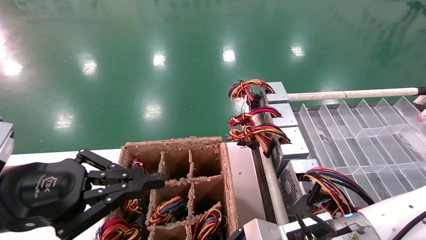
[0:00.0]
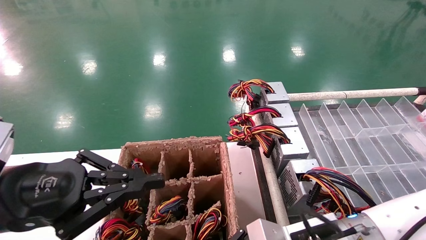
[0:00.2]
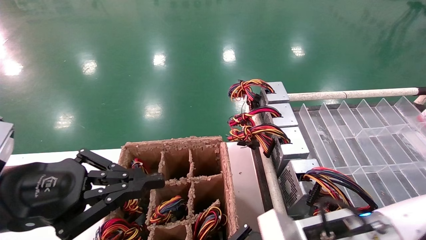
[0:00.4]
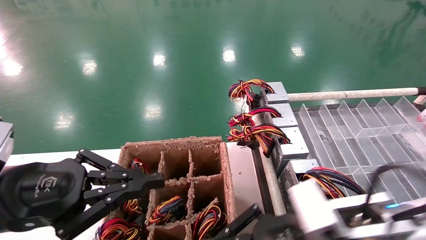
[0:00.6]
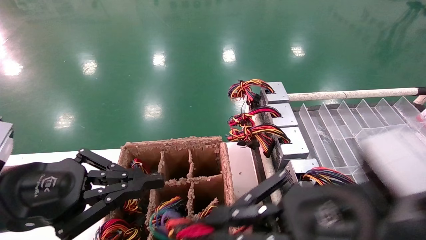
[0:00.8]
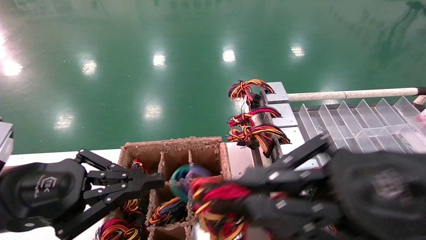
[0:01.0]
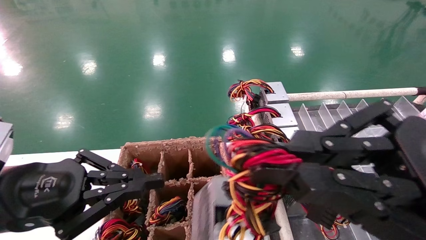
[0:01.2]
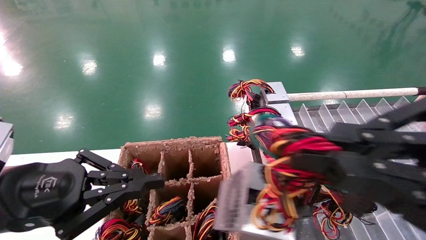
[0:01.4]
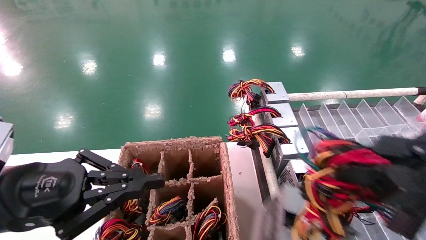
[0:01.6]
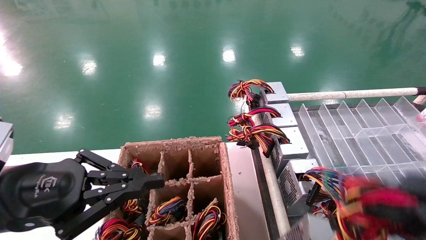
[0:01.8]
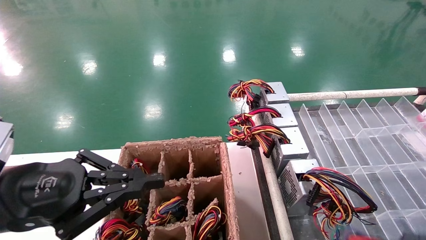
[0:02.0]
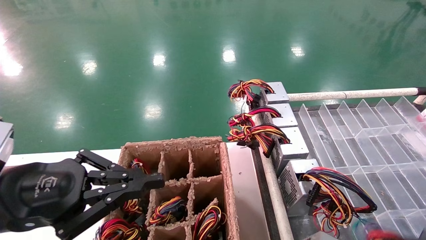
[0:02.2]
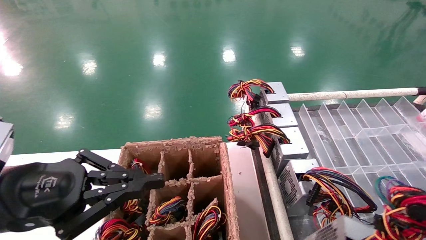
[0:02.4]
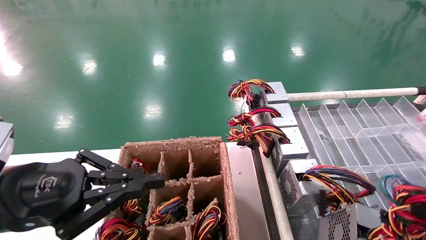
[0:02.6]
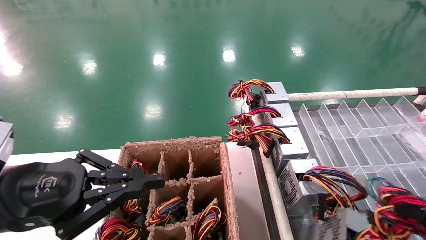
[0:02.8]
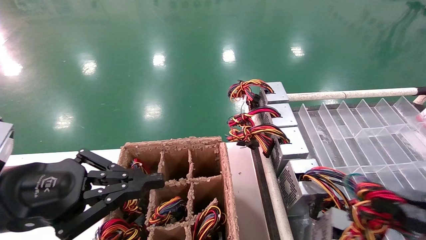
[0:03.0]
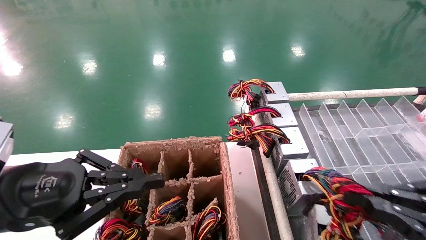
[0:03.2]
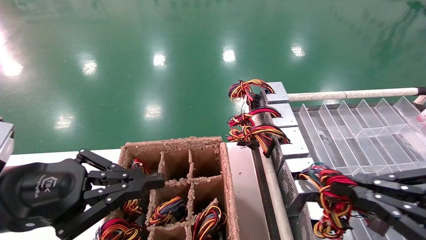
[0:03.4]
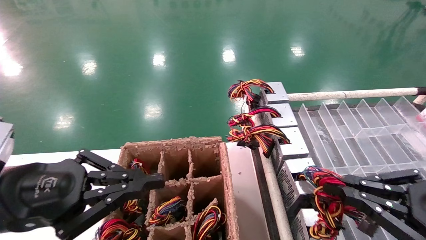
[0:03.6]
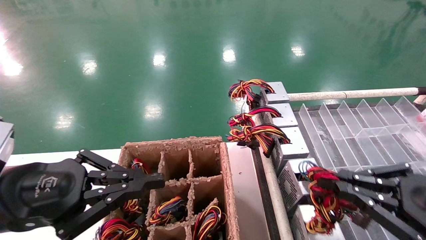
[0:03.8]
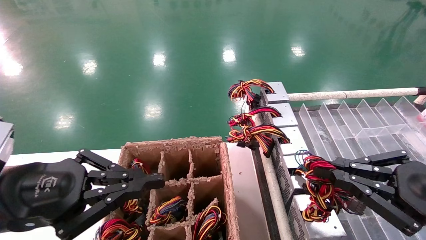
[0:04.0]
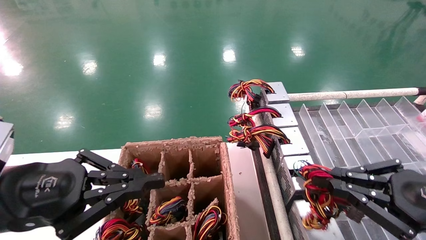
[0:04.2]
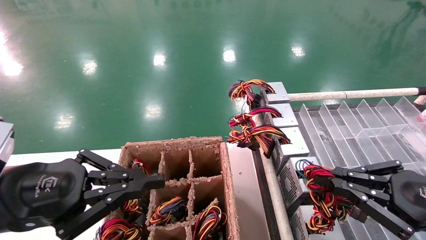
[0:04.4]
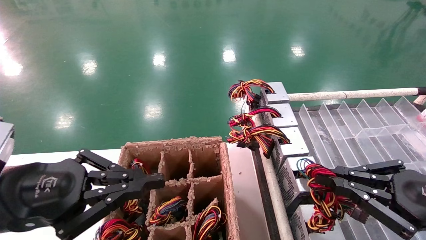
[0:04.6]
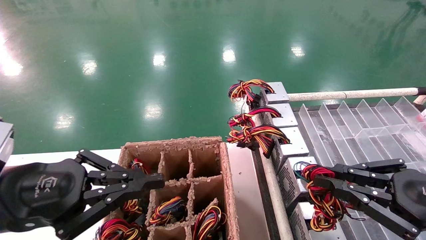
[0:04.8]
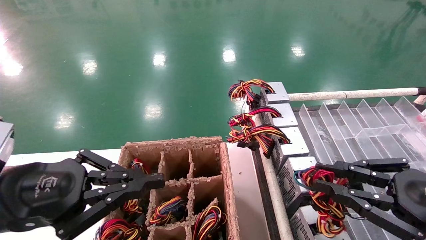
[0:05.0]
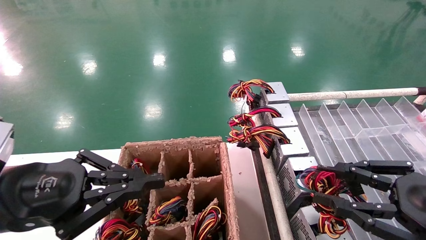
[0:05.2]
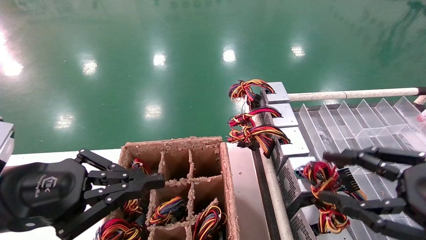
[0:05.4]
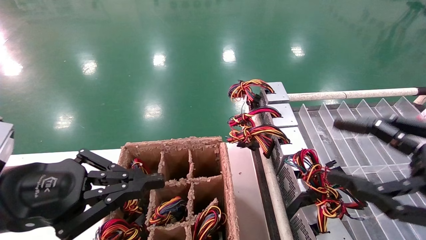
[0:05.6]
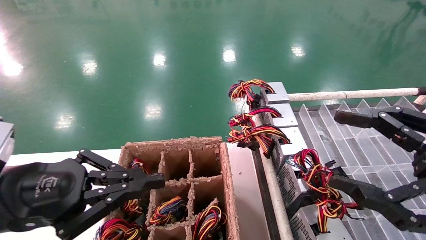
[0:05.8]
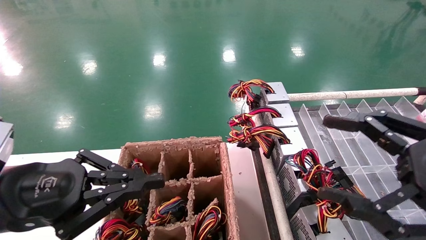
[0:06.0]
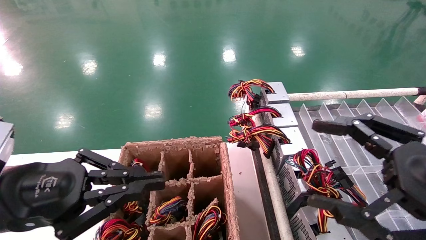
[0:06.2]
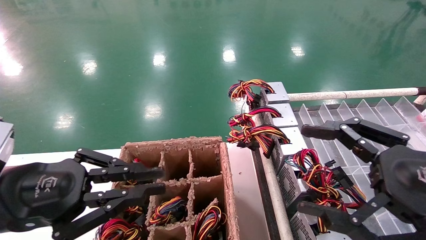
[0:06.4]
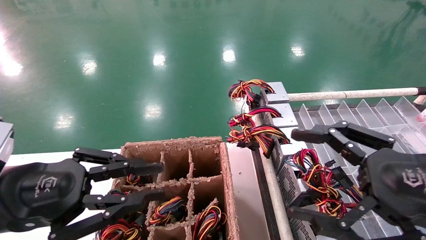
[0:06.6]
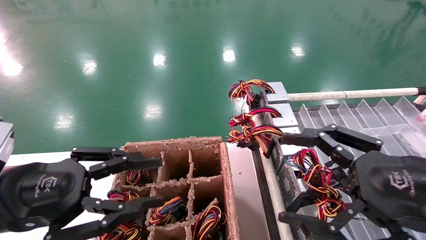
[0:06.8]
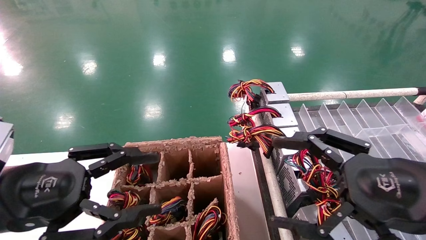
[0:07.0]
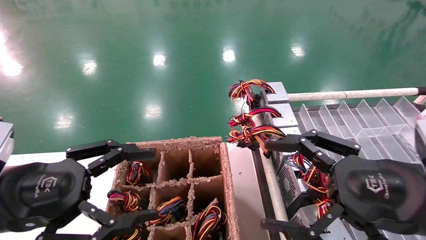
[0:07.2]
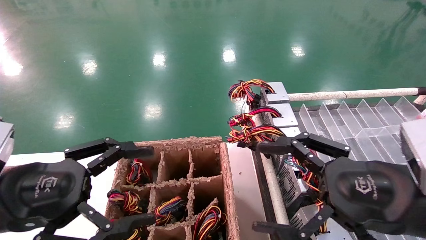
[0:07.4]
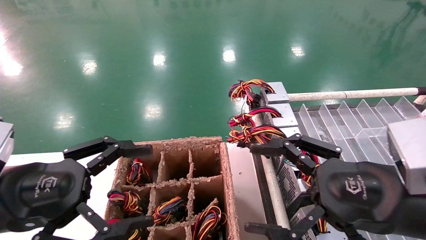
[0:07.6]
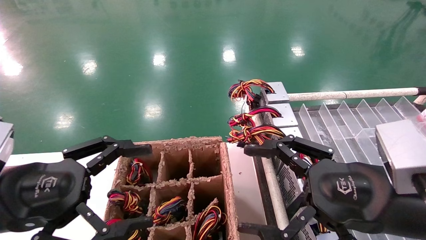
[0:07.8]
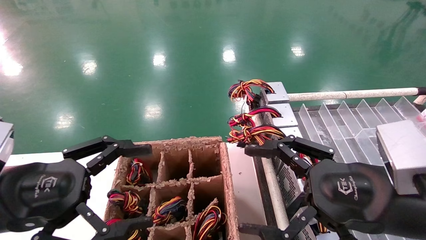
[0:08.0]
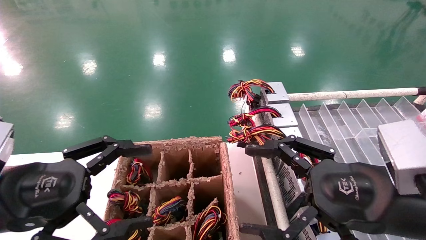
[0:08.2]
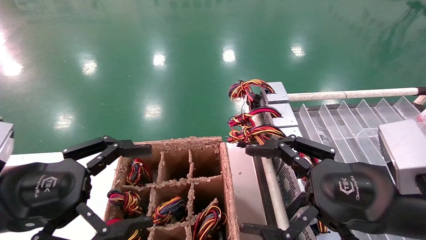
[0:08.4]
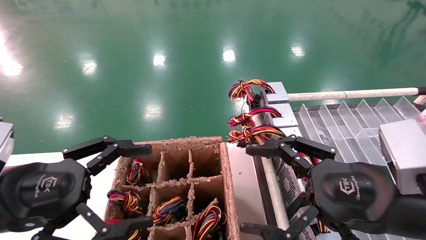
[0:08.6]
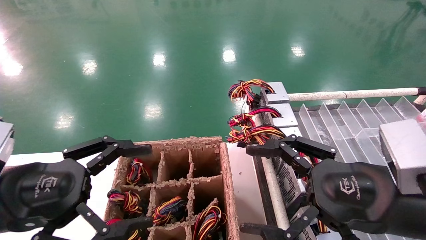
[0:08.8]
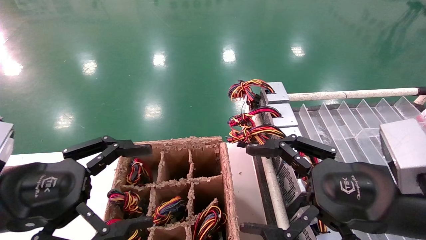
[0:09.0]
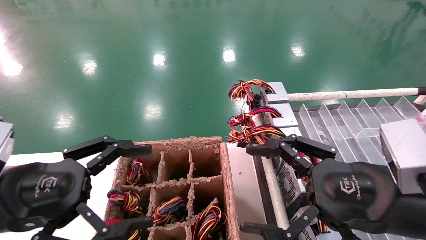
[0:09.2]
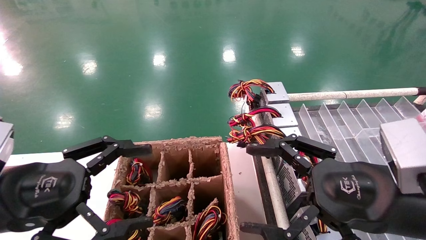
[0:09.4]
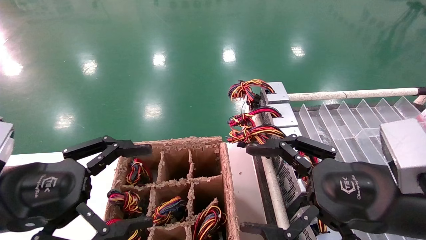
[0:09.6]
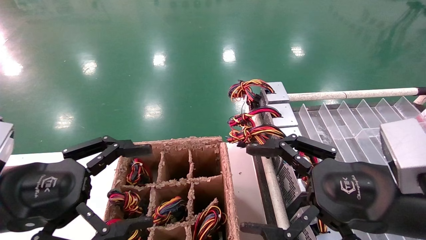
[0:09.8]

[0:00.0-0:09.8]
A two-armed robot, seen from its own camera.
Step, 0:00.6 to 0:04.8: Place the main unit power supply in the designated area.
0:00.0 to 0:01.4: The right gripper is displaced upward, backward and to the right by approximately 25 cm.
0:01.4 to 0:02.8: The right gripper shifts approximately 15 cm to the right and downward.
0:02.8 to 0:04.2: The right gripper travels forward by approximately 10 cm.
0:04.2 to 0:05.6: The right gripper is displaced upward by about 5 cm, and opens up.
0:05.6 to 0:07.0: The right gripper goes roughly 5 cm to the left, and opens its fingers, while the left gripper opens up.
0:07.0 to 0:08.4: The left gripper opens its fingers.
0:08.4 to 0:09.8: Both grippers stay about where they are.

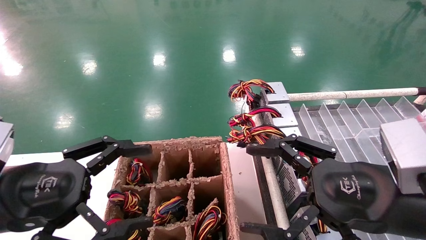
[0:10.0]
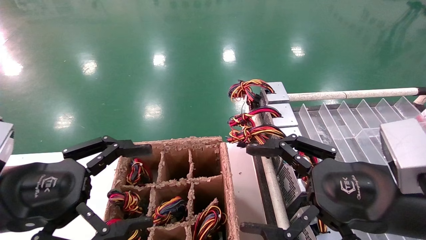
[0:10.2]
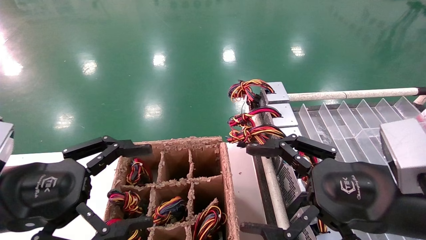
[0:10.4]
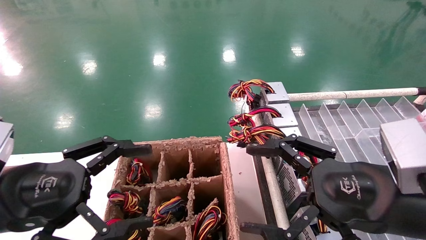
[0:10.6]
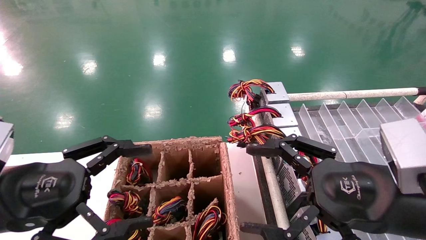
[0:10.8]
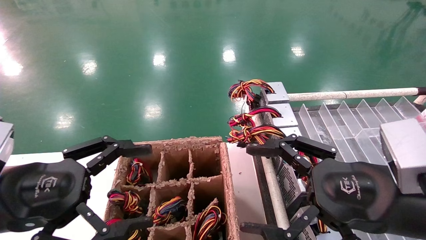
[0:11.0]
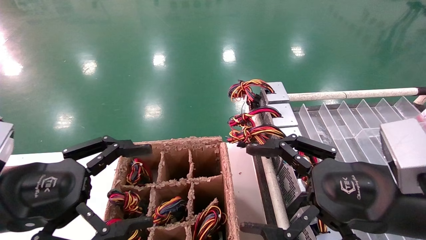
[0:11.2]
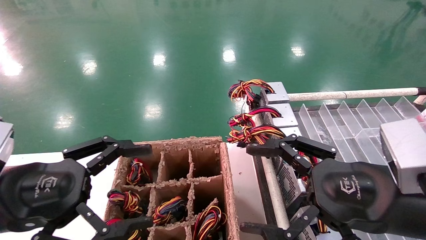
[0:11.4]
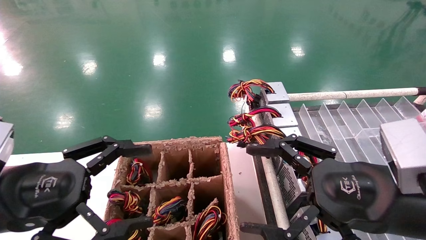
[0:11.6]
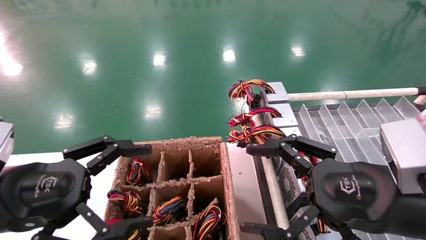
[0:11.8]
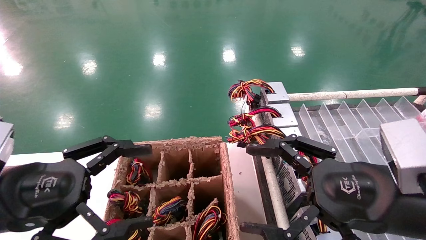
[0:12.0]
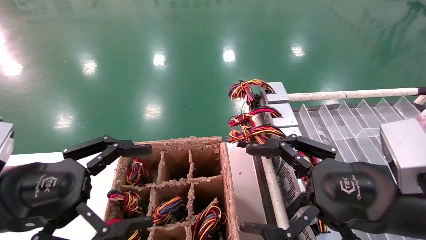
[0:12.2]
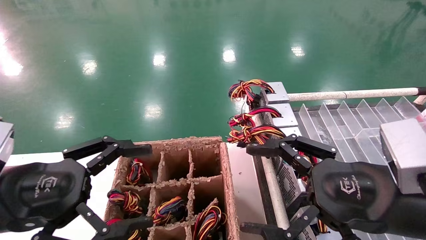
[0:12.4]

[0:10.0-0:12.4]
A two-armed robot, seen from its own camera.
0:10.0 to 0:12.4: Neither gripper changes place.
